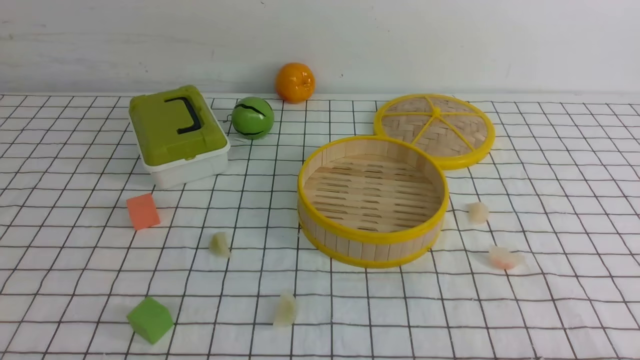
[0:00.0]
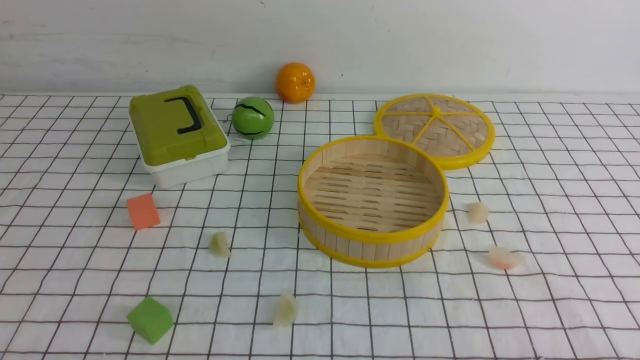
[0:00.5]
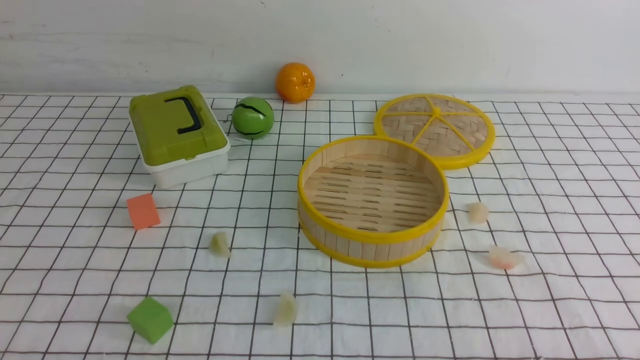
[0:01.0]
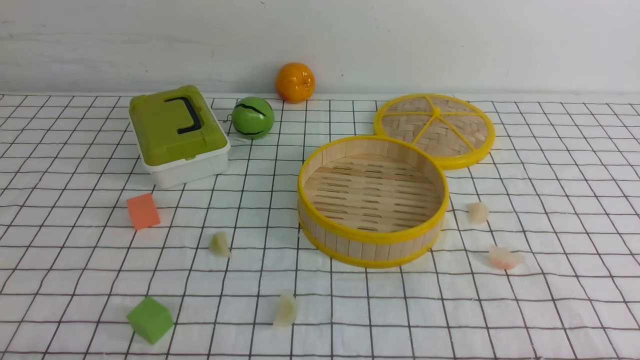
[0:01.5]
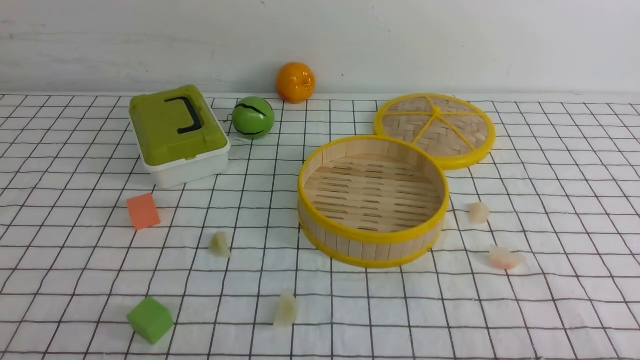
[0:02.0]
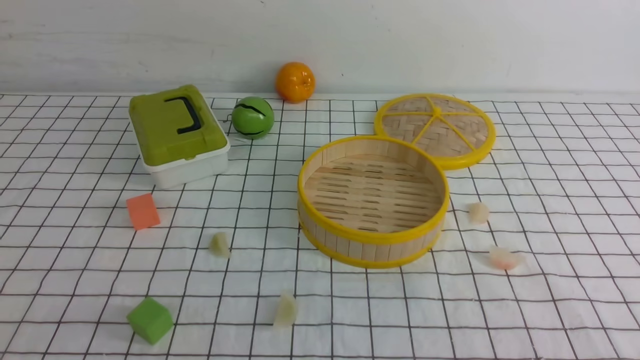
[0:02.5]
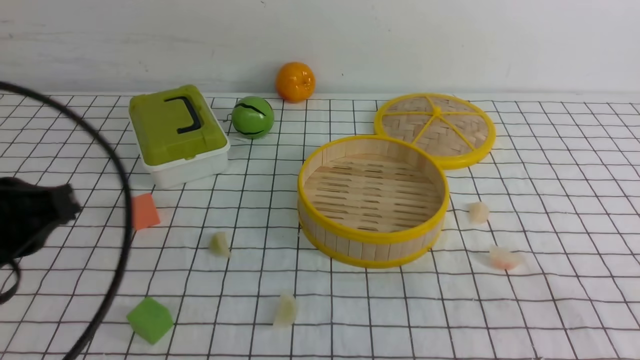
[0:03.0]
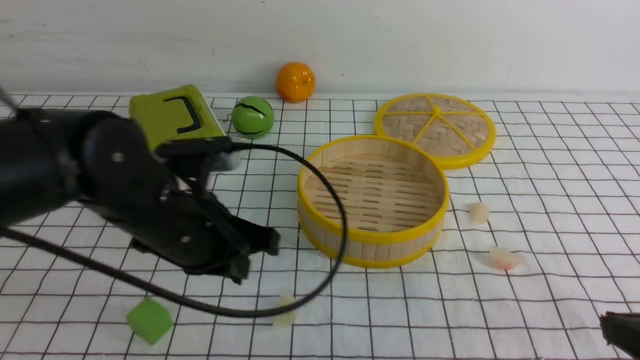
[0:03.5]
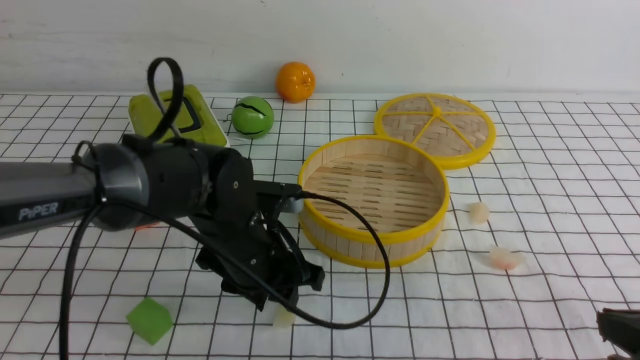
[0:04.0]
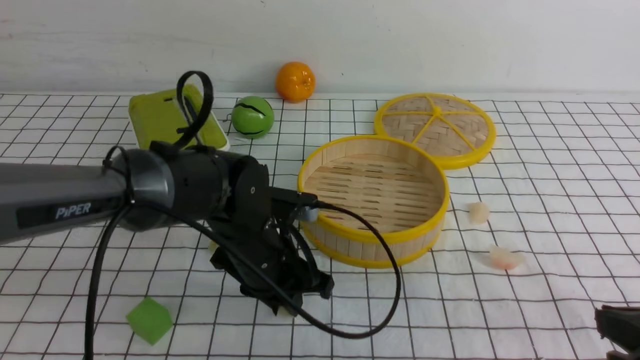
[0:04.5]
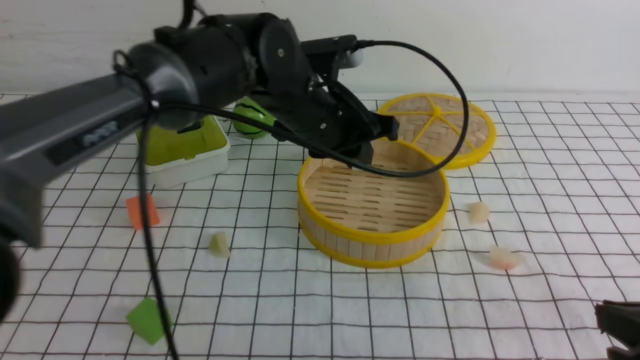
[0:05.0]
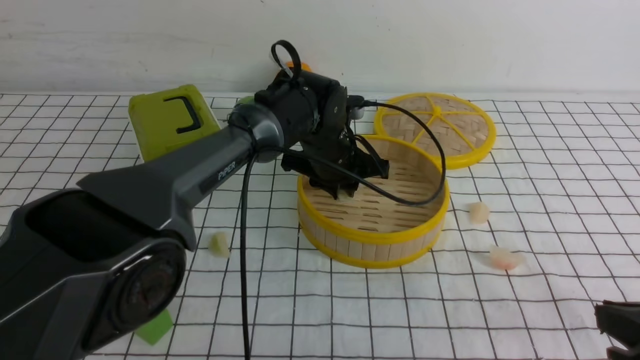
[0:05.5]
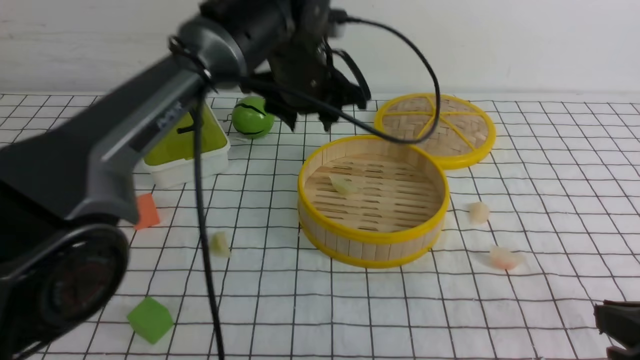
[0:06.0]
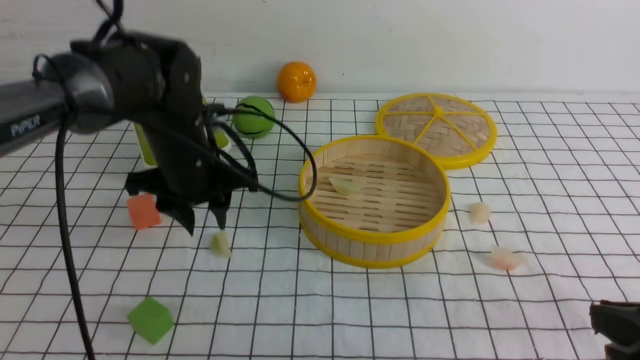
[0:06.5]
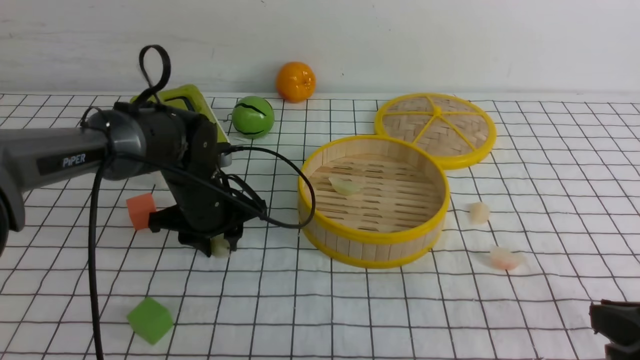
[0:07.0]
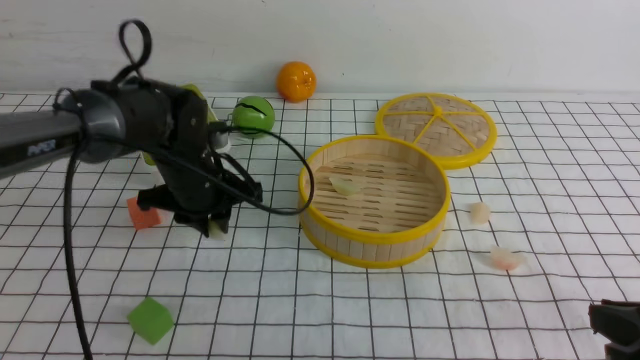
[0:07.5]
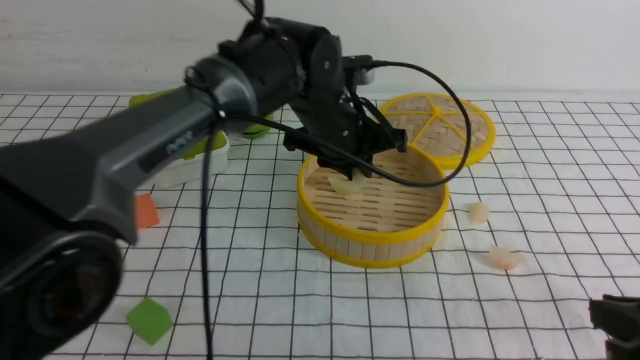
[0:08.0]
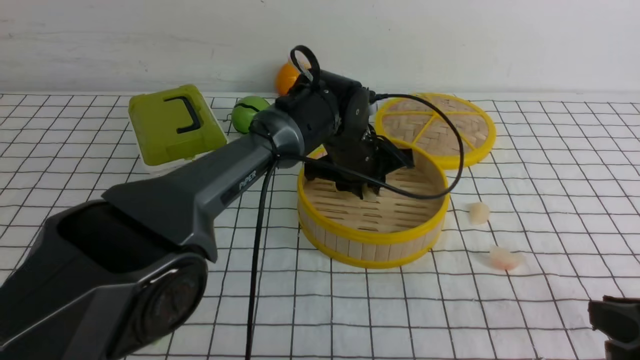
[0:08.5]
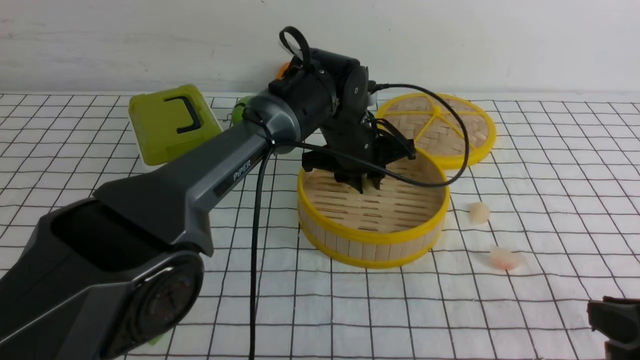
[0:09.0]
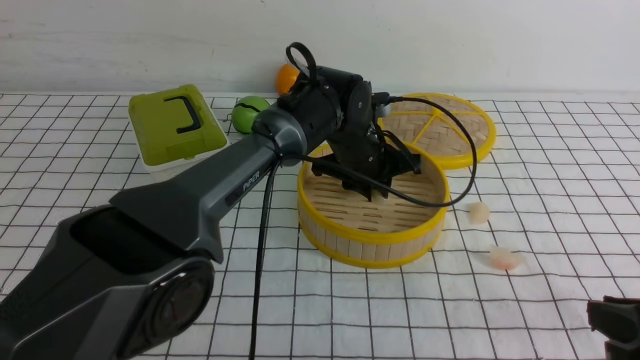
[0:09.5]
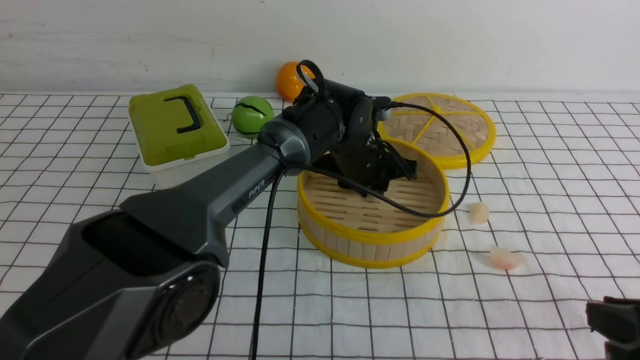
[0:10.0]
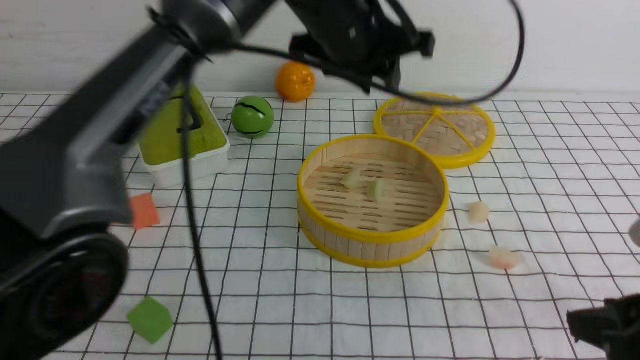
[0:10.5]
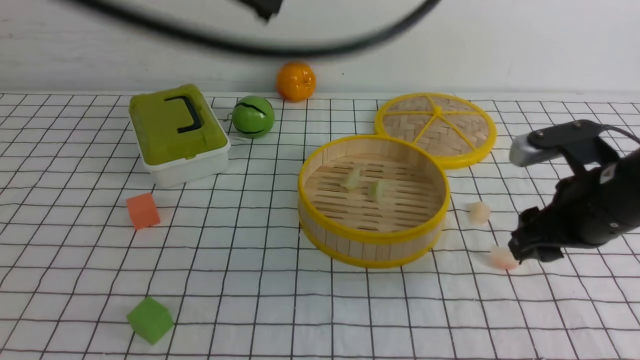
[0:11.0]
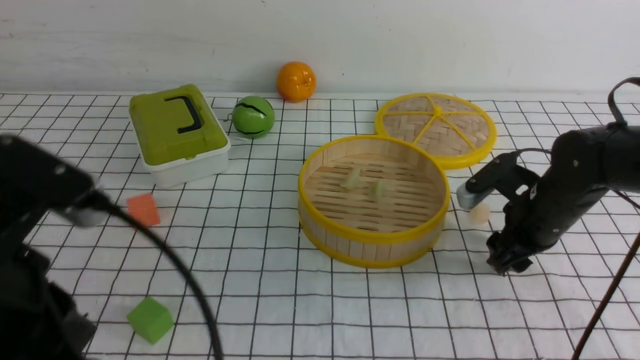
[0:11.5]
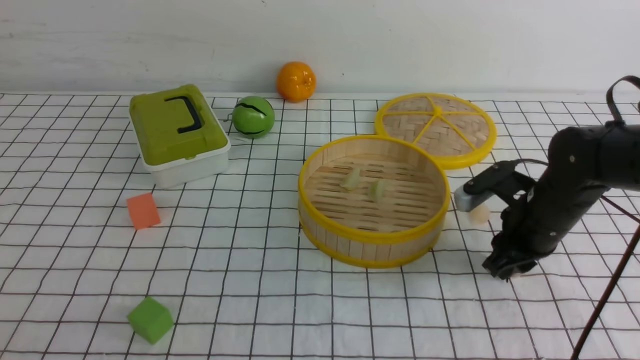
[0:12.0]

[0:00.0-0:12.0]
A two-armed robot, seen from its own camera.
Task of the whole recording: put the dumplings into the steamer on the table with the white tablecloth.
Step, 0:00.0 to 0:04.5: use the left arm to grab a dumpling.
Step, 0:05.0 to 0:06.0: use the left arm to put the dumpling into the steamer.
Step, 0:06.5 to 0:07.5: use the left arm to grab a dumpling.
Step, 0:08.0 to 0:11.0: use the left arm to put the dumpling into the steamer.
0:02.0 to 0:04.0: The left gripper is displaced forward and to the right by approximately 30 cm, and closes, then reopens, while the right gripper goes roughly 10 cm forward, and closes.
0:04.0 to 0:06.0: The left gripper moves upward and forward, approximately 20 cm.
0:06.0 to 0:08.0: The left gripper goes downward and returns, some 15 cm each way, and closes.
0:08.0 to 0:10.0: The left gripper is displaced downward by some 5 cm.
0:10.0 to 0:12.0: The left gripper moves backward and to the left, roughly 50 cm, and closes up; the right gripper is displaced forward by approximately 25 cm, and opens and closes again.

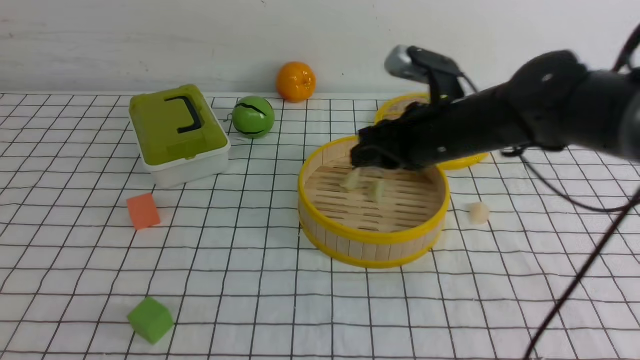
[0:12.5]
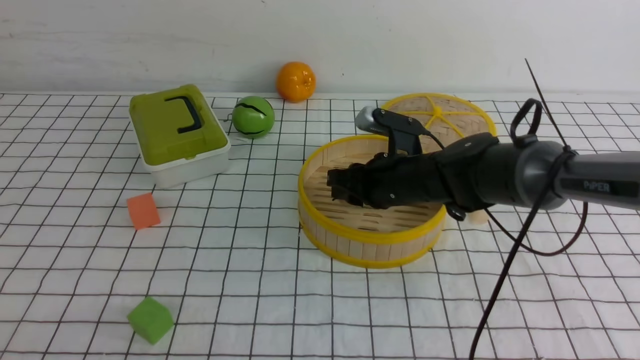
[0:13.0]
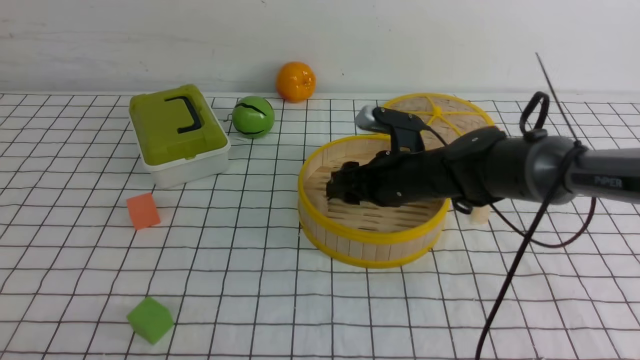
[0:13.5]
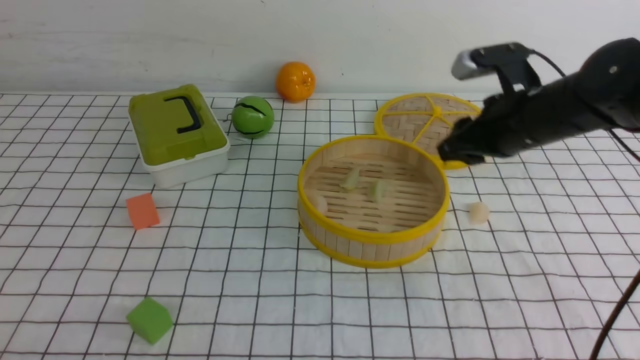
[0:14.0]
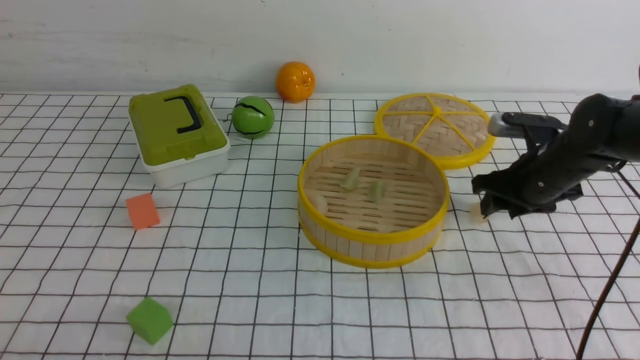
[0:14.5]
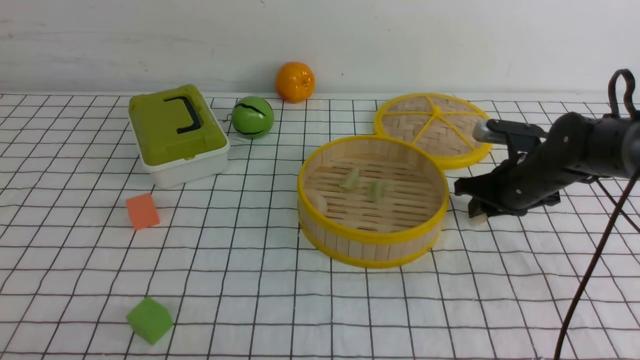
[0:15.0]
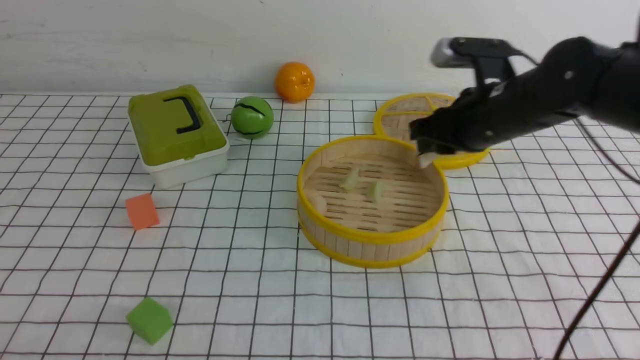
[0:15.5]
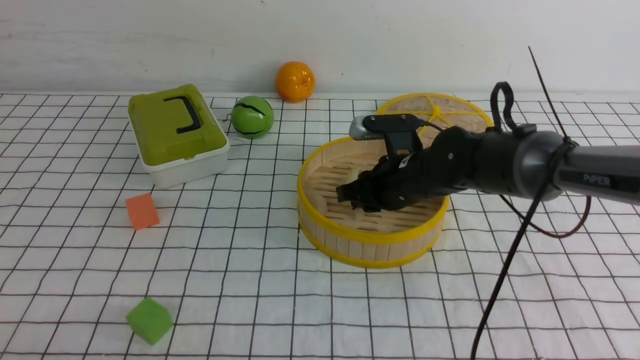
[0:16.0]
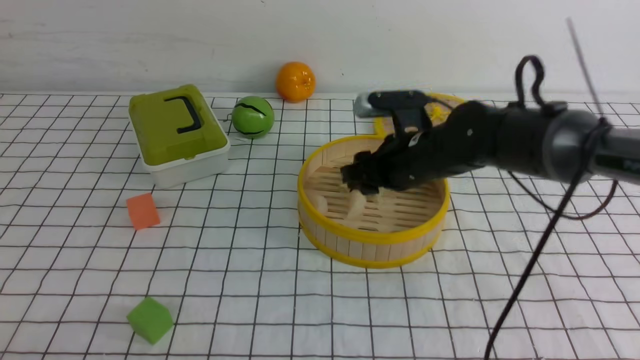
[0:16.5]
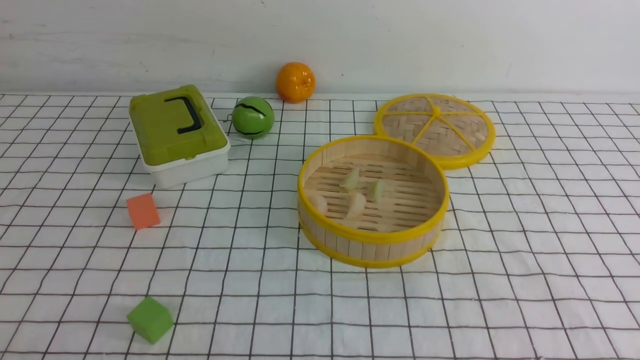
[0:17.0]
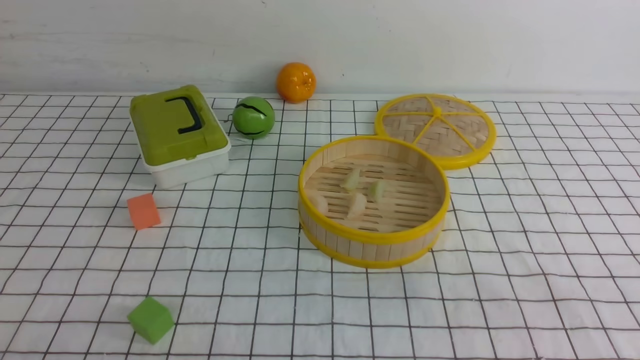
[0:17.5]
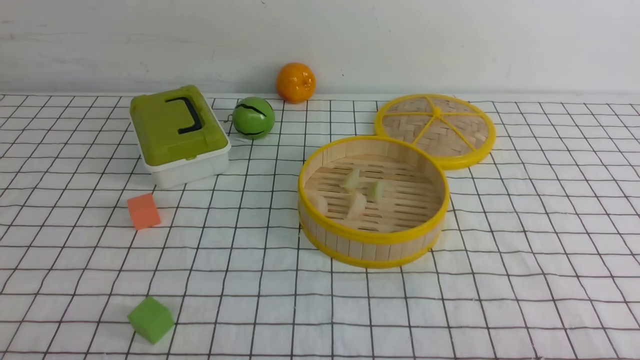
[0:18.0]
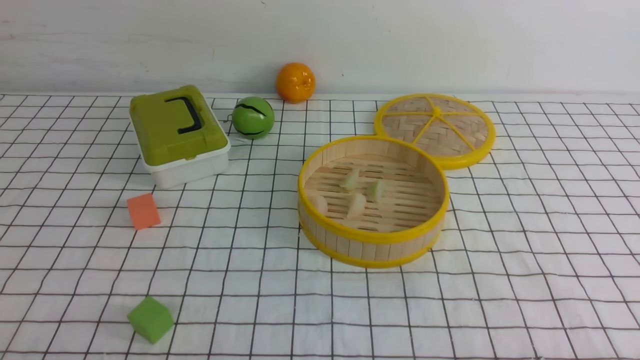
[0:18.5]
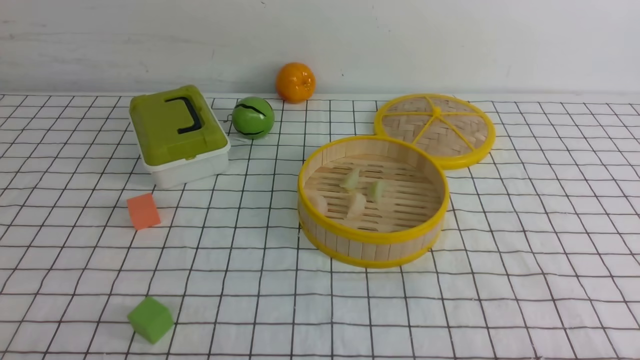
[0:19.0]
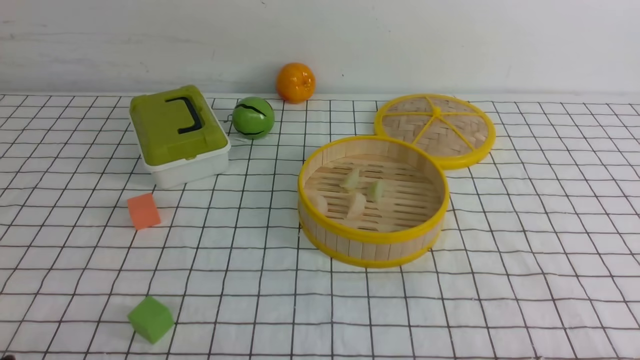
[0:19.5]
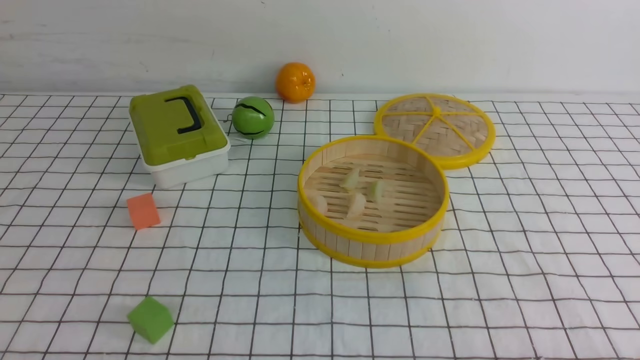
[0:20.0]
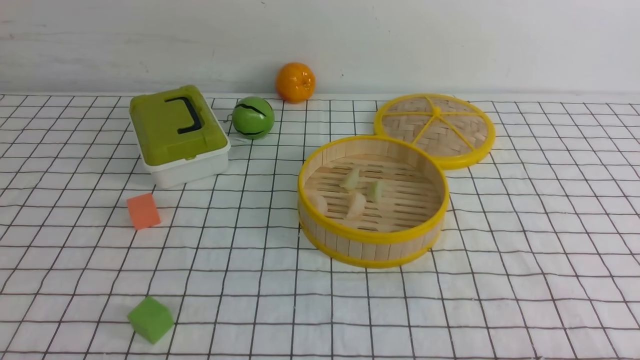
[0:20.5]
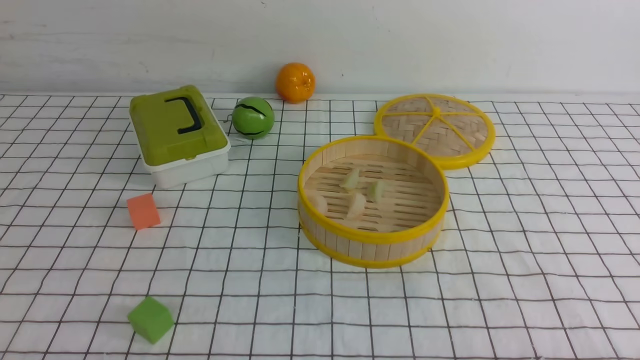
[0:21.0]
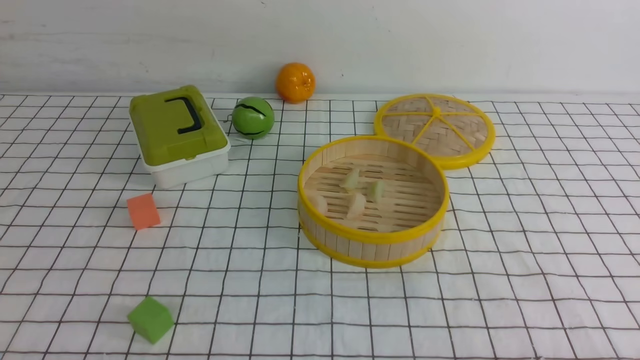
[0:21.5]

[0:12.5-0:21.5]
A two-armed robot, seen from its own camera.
Task of the whole recording: put the dumplings into the steamer on the table with the white tablecloth.
Step, 0:12.5 to 0:13.5: use the right arm to put the dumpling into the steamer.
Step, 0:14.0 to 0:15.0: use the right arm to grab a dumpling.
Step, 0:16.0 to 0:16.5: use the right arm to put the dumpling into the steamer.
0:12.5 to 0:14.5: The right gripper shifts some 15 cm to the right and downward, and opens its fingers.
0:14.5 to 0:17.0: The right gripper moves up and down over approximately 25 cm, changing direction 2 times, and closes up.
